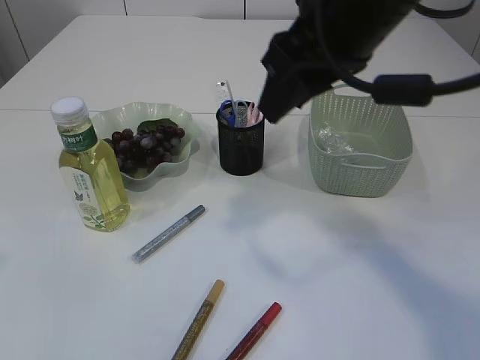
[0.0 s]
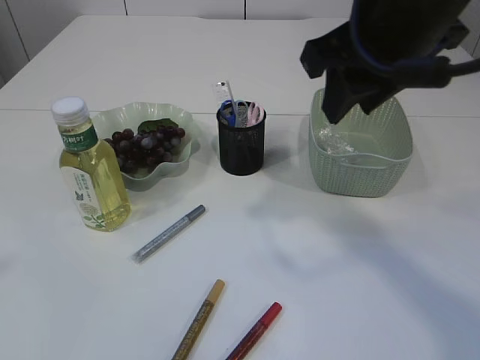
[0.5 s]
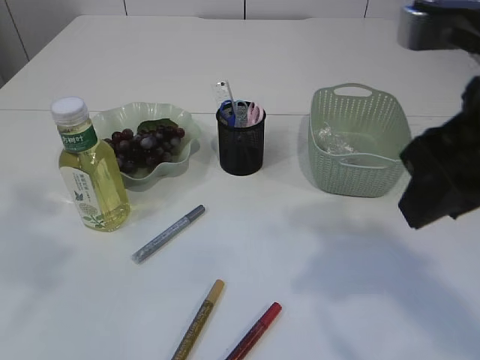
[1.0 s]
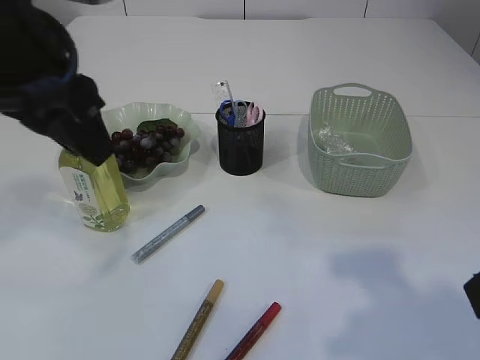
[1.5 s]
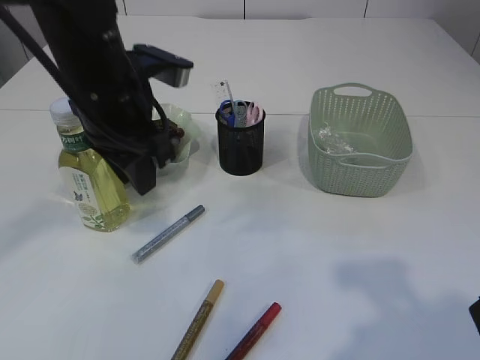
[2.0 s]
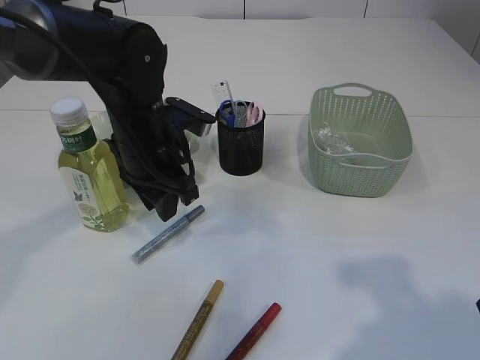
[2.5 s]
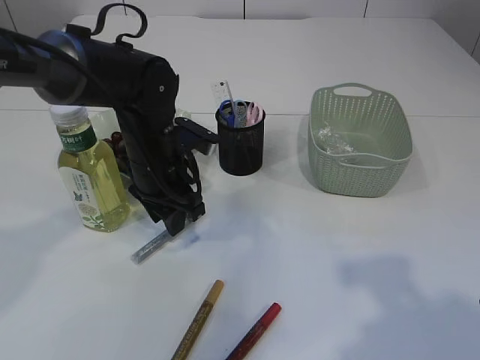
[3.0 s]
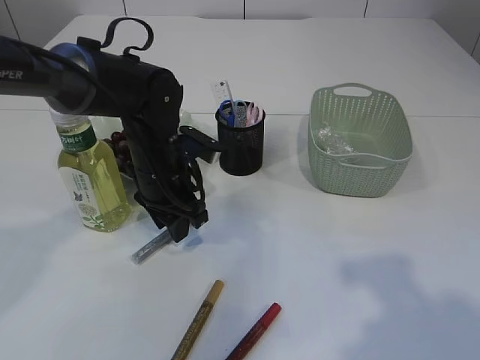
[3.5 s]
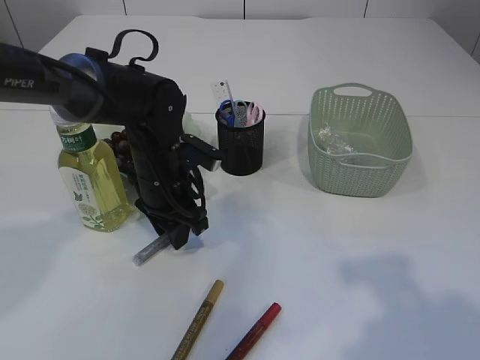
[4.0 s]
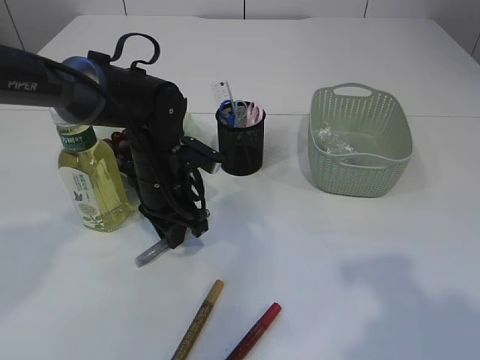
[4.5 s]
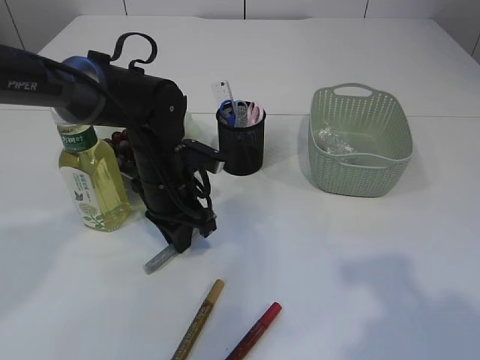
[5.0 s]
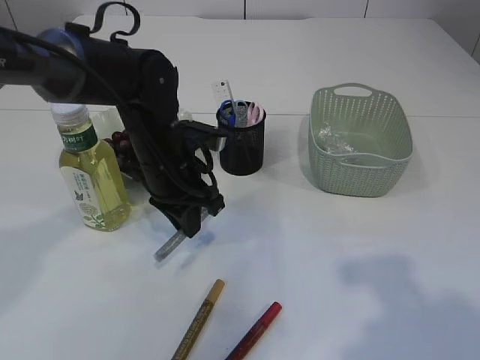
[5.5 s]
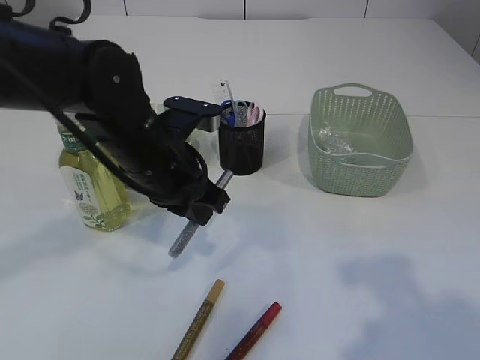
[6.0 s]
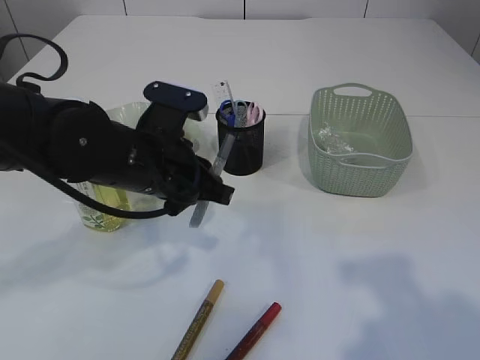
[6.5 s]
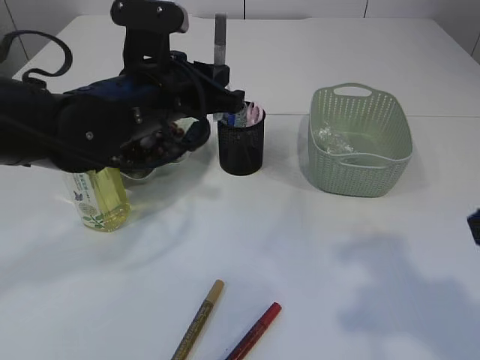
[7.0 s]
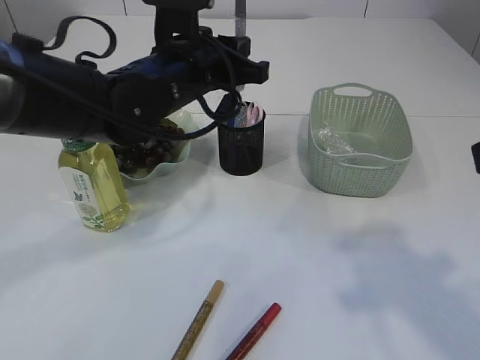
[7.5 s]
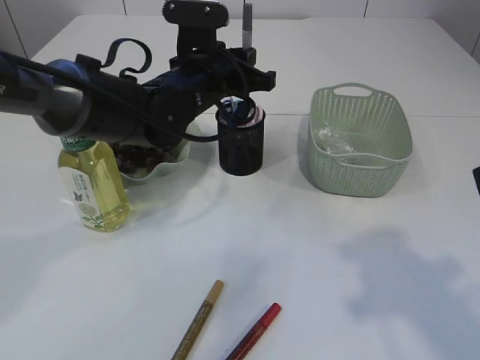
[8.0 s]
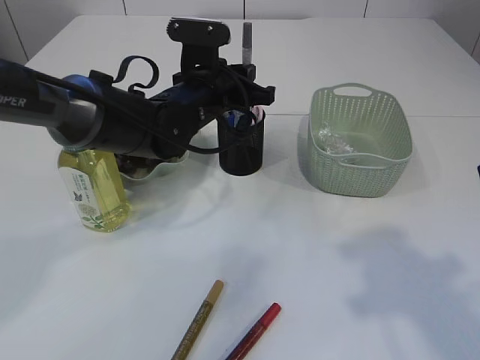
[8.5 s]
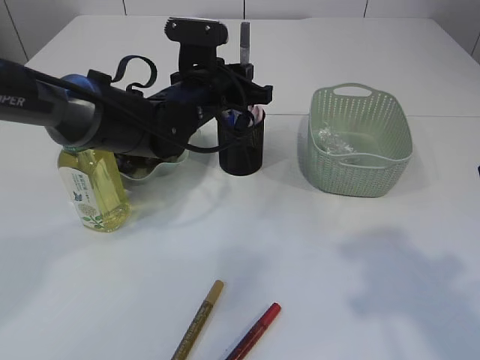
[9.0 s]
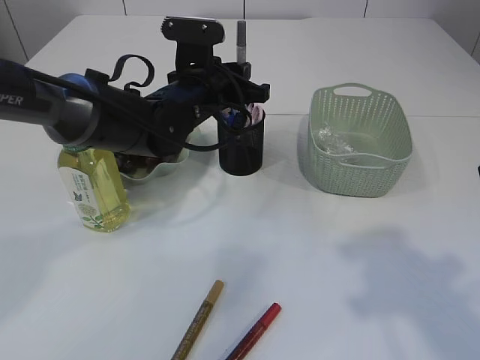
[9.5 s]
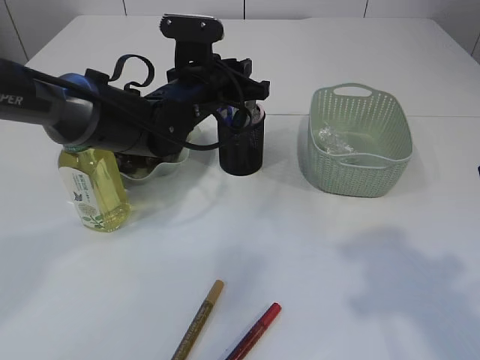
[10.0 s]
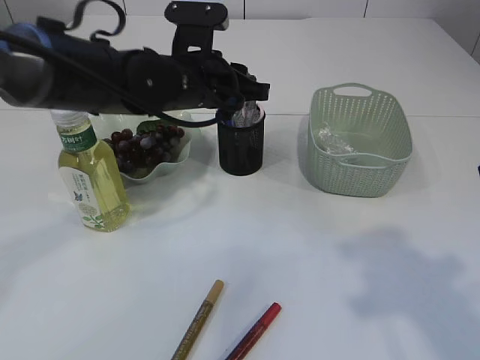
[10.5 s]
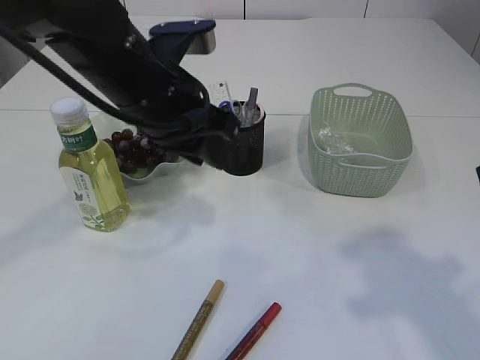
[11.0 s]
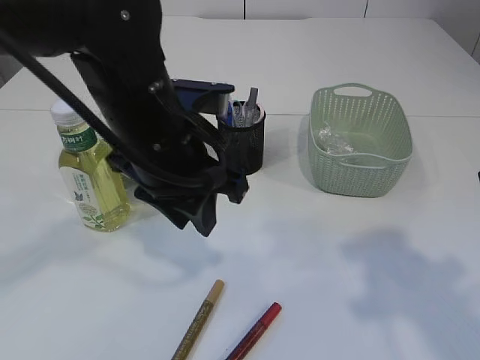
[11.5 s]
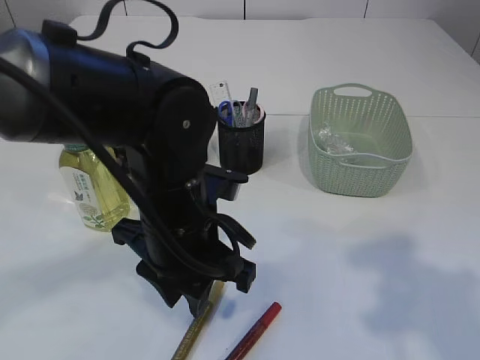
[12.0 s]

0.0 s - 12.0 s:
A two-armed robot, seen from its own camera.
Step, 0.0 s - 5.5 s: pick up the silver glue.
Step, 6.0 s - 10.5 s: place the silver glue into the pen holder.
0.0 s - 2.0 s: The left gripper goes roughly 35 cm forward, downward and to the right; the right gripper shifts roughly 20 cm backward and to the right.
2.0 s - 4.0 s: The left gripper travels downward by approximately 15 cm.
4.0 s - 6.0 s: The left gripper moves upward and backward, about 10 cm, and closes.
6.0 s - 8.0 s: The left gripper goes approximately 10 cm forward.
8.0 s - 10.0 s: The grippers stay close to where they were, moving slightly.
10.0 s - 12.0 s: The left gripper travels backward by approximately 15 cm.

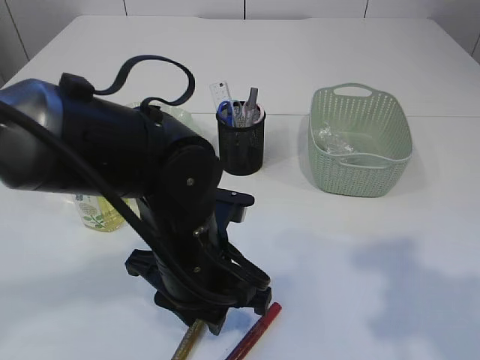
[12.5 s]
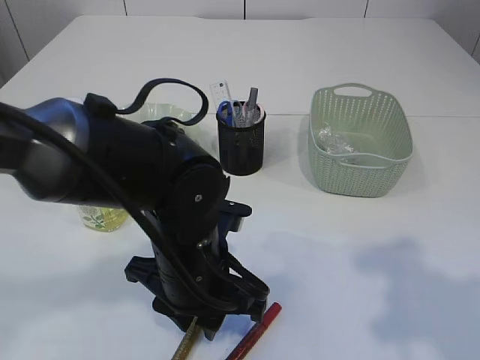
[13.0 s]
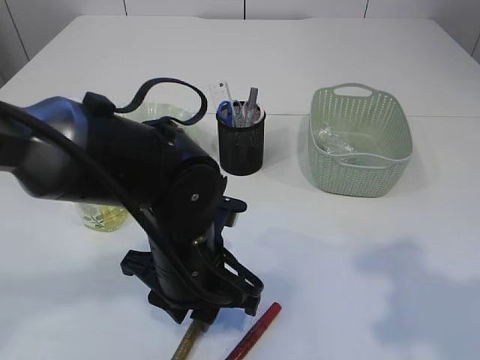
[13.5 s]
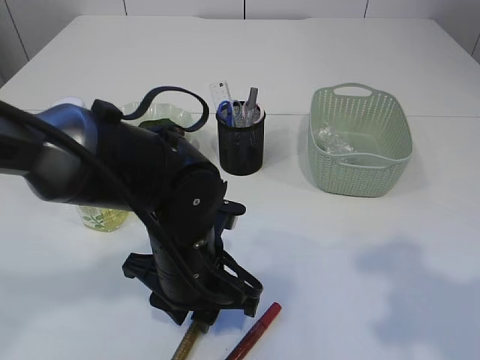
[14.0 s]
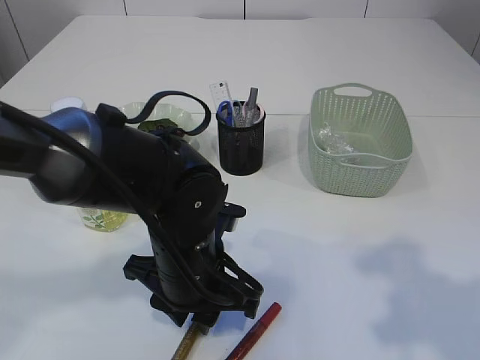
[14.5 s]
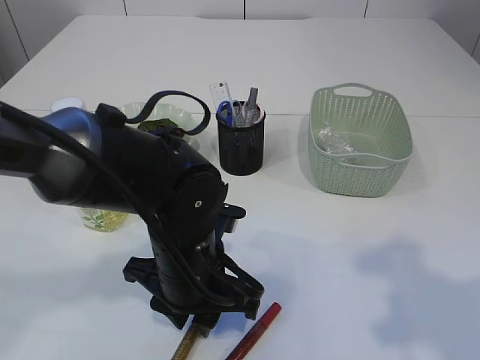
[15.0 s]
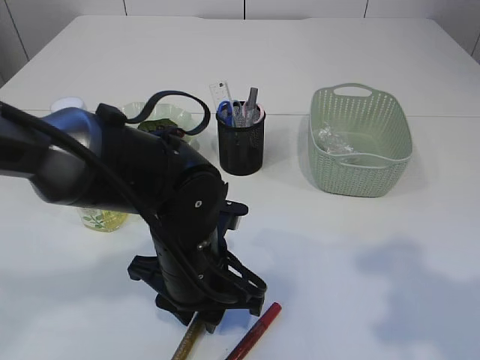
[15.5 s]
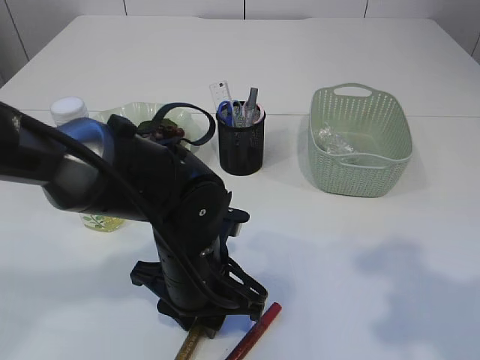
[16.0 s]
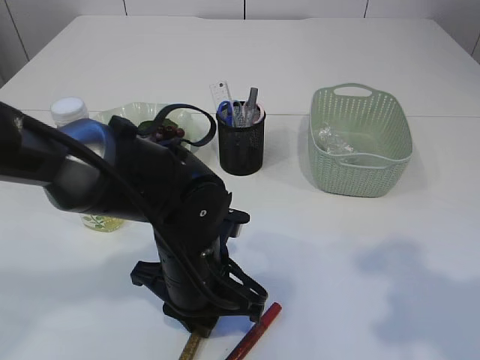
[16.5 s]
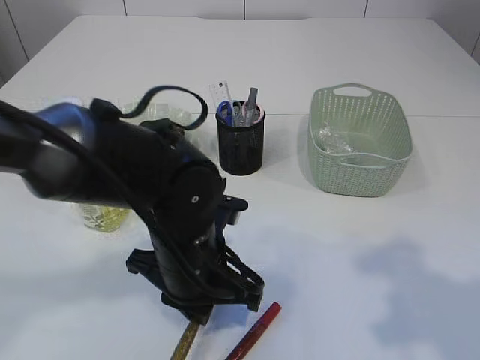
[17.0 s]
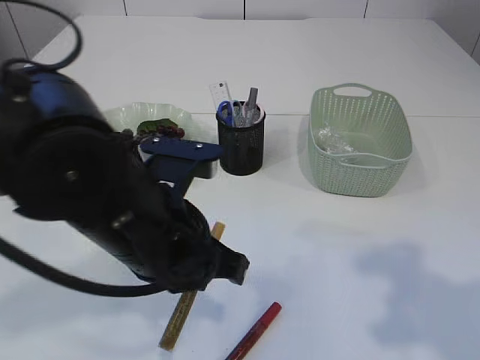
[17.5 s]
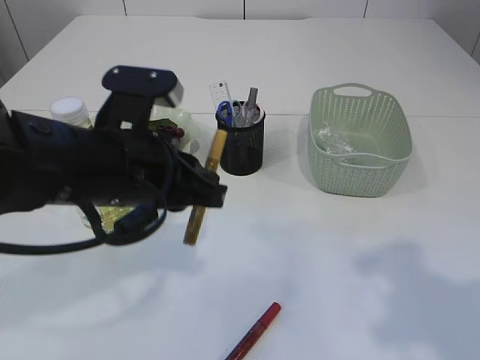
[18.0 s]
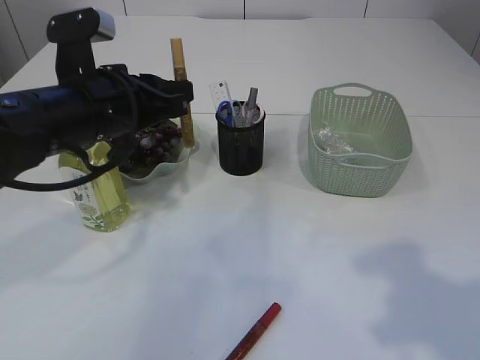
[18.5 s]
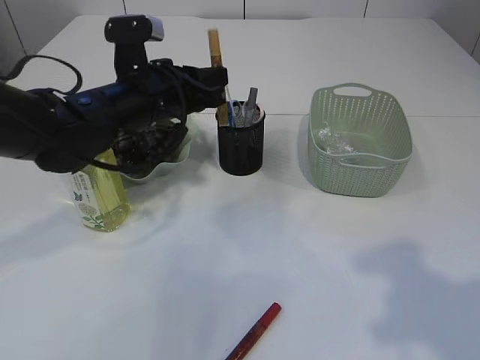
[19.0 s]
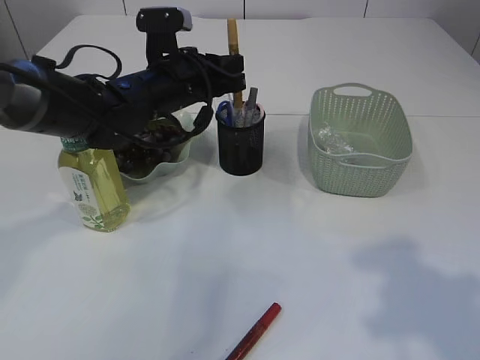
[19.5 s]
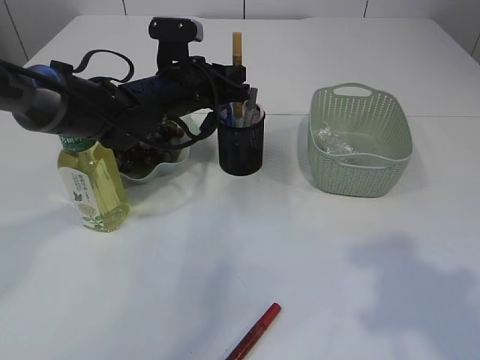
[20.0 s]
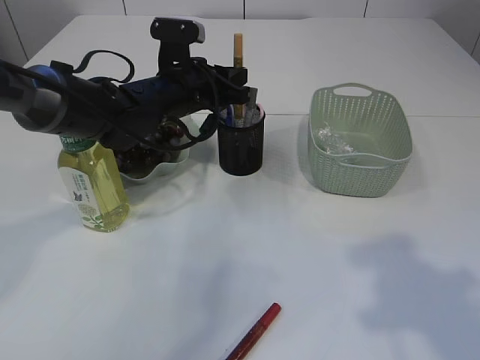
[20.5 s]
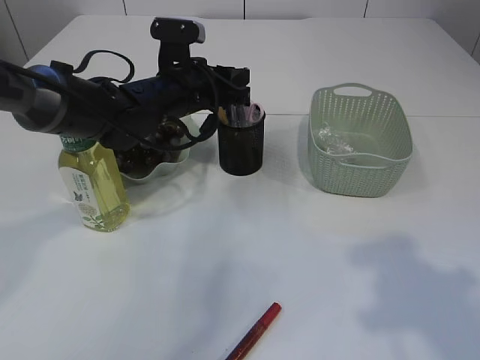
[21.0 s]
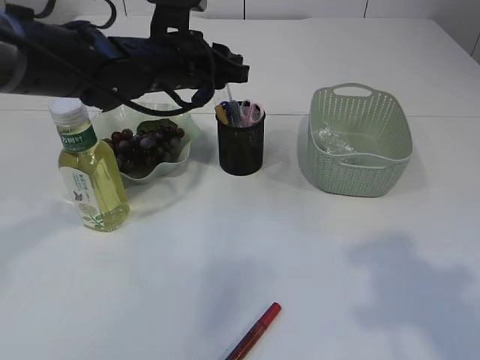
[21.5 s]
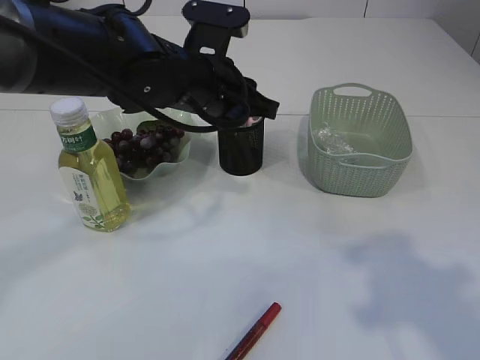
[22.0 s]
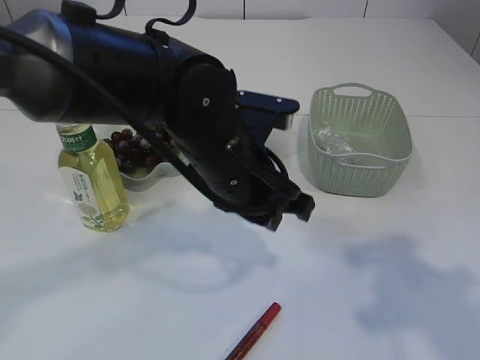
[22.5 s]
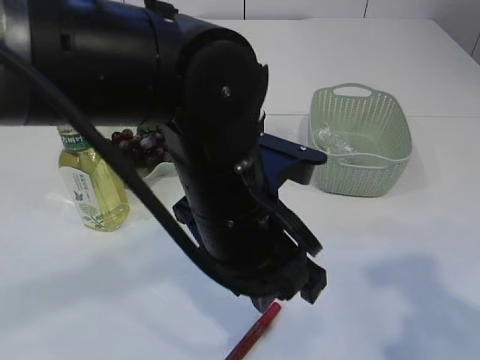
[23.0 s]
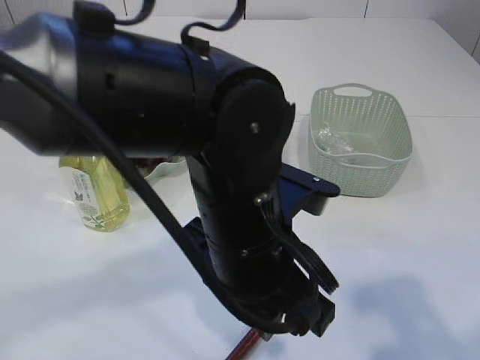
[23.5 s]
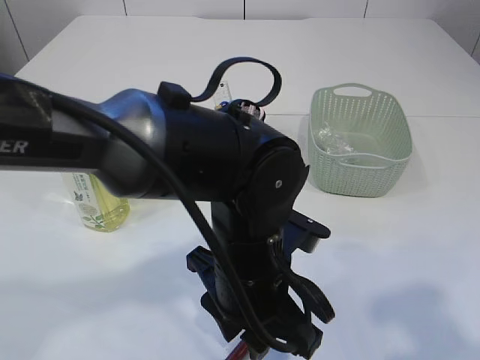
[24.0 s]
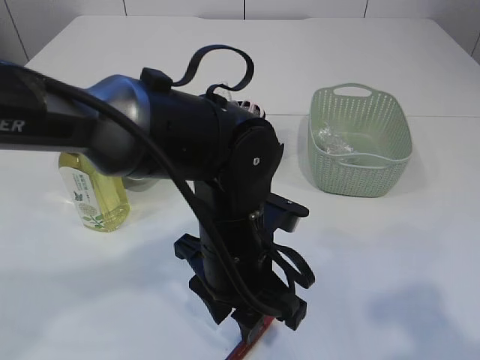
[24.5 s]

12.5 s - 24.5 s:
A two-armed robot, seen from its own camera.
Step, 12.5 s - 17.0 s: pick up the yellow glue.
Step, 17.5 s - 21.5 s: place the yellow glue into the pen holder.
12.5 s - 14.5 s: The grippers stay close to where they were, moving slightly.
14.5 s - 16.5 s: The two grippers keep their place.
16.5 s - 18.5 s: The left gripper goes roughly 20 cm upward, to the left and forward.
18.5 s - 20.5 s: The left gripper is displaced forward, to the right and downward by some 15 cm.
20.5 s - 22.5 s: The left gripper moves backward and to the right, approximately 15 cm.
22.5 s - 24.5 s: The left gripper heads backward and downward, covering roughly 10 cm. Meanwhile the right gripper moves backward, roughly 5 cm.

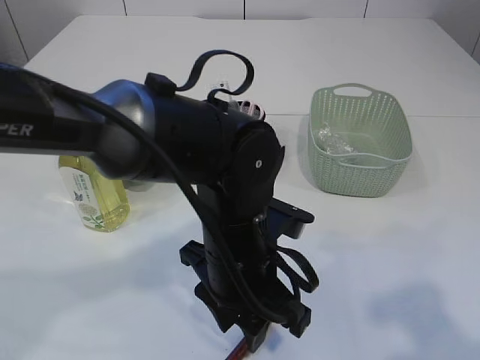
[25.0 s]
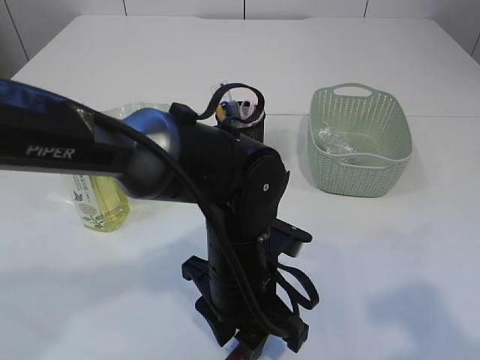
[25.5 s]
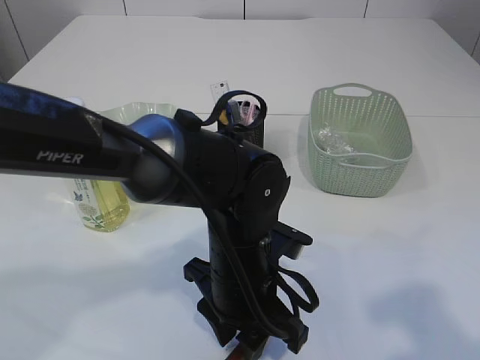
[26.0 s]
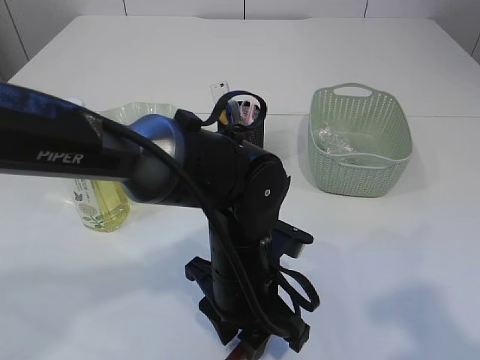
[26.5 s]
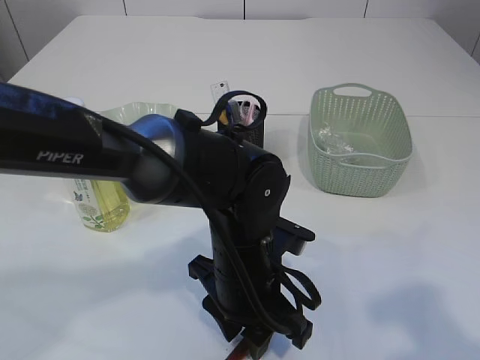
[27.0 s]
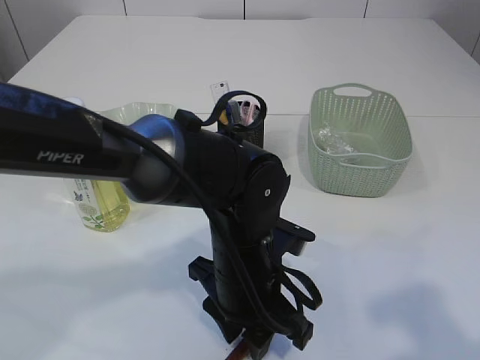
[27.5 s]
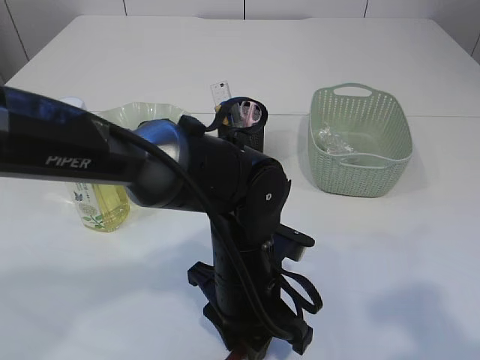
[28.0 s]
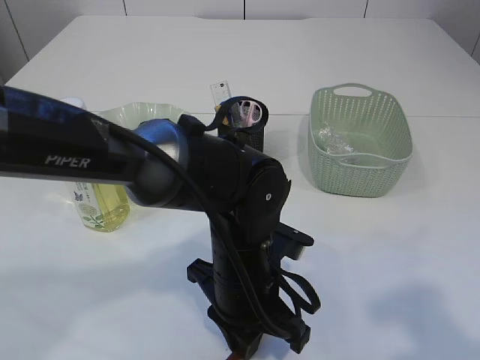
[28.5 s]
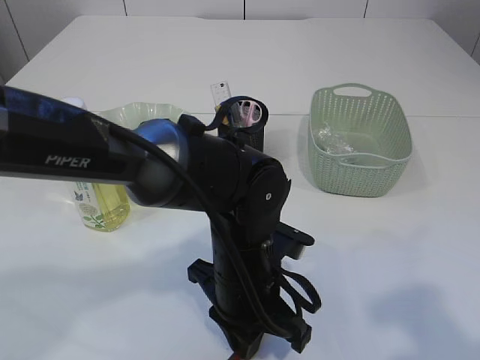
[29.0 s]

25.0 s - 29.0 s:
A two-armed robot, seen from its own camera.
25.0 s - 27.0 s: There are only small adjustments of the grippers.
27.0 s - 29.0 s: The left gripper closes up.
